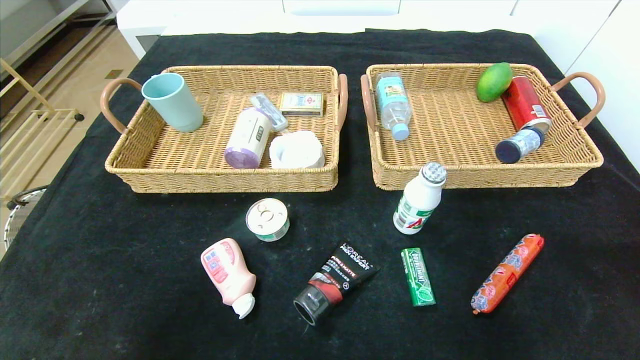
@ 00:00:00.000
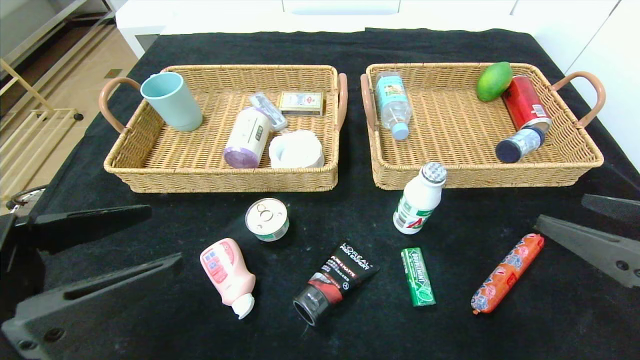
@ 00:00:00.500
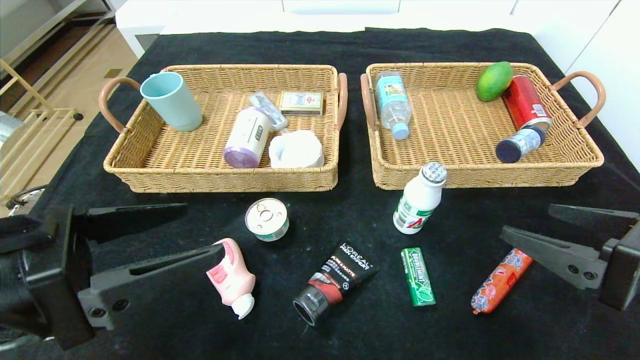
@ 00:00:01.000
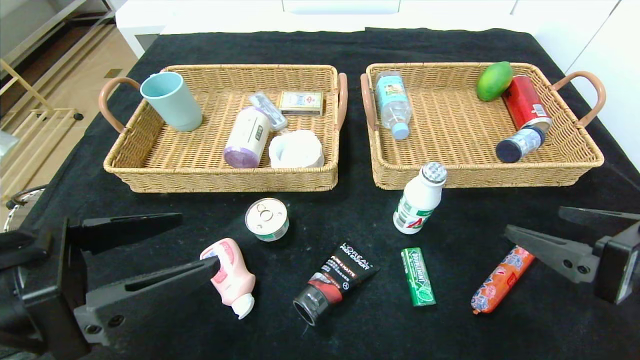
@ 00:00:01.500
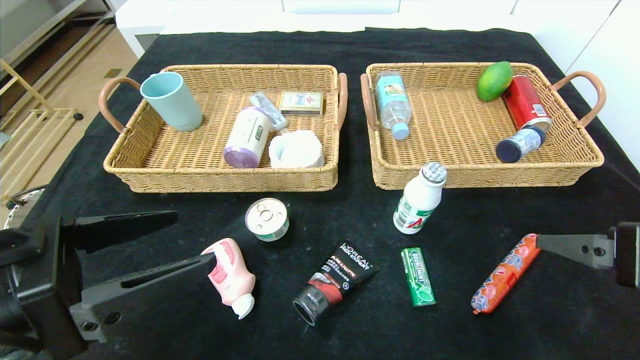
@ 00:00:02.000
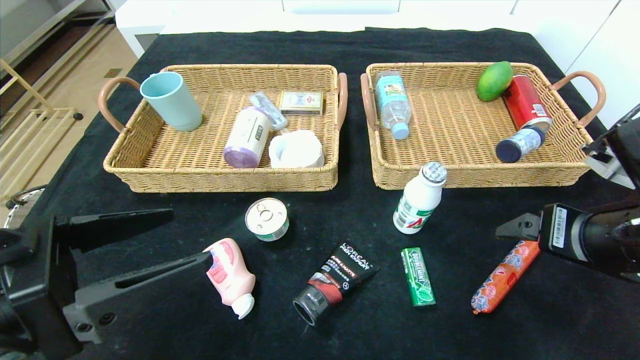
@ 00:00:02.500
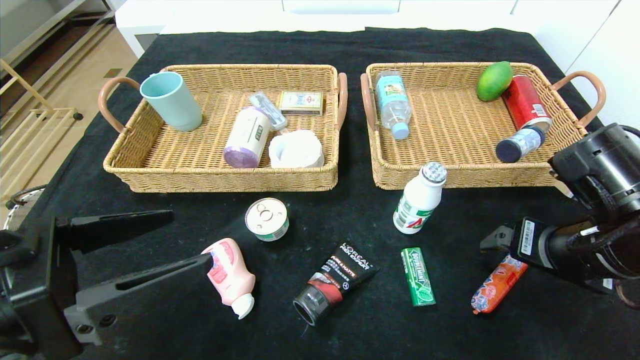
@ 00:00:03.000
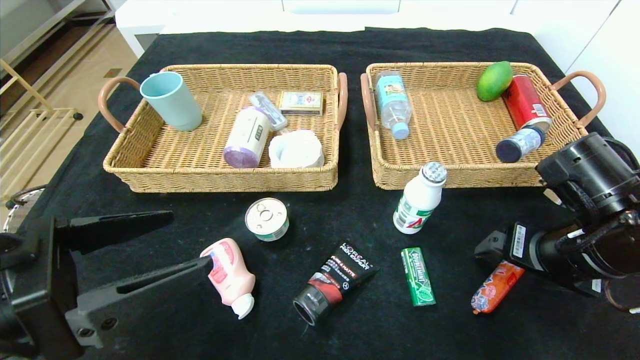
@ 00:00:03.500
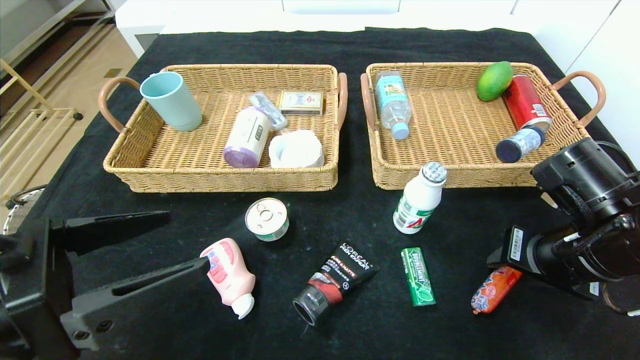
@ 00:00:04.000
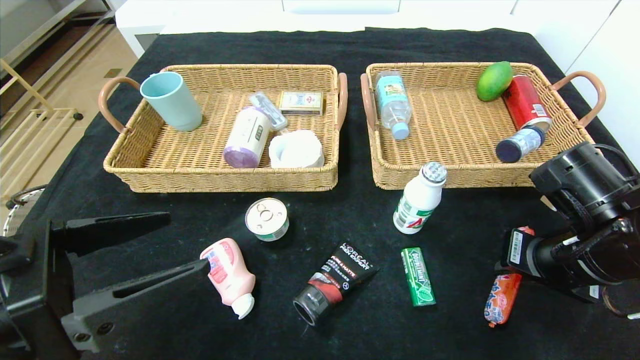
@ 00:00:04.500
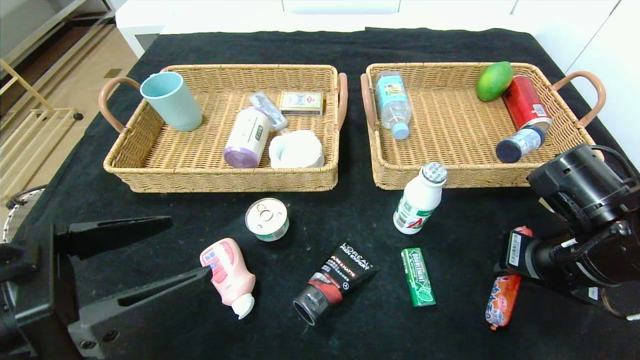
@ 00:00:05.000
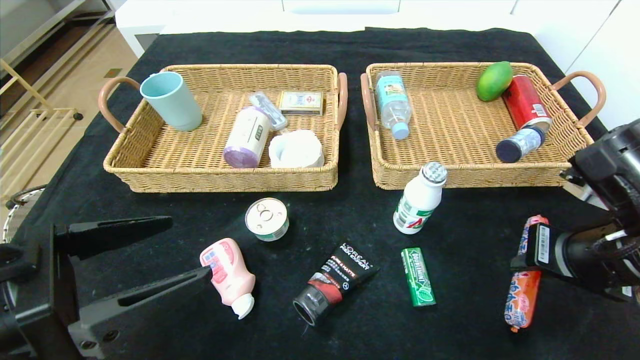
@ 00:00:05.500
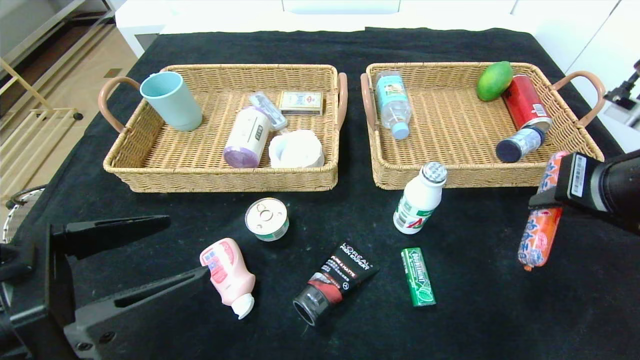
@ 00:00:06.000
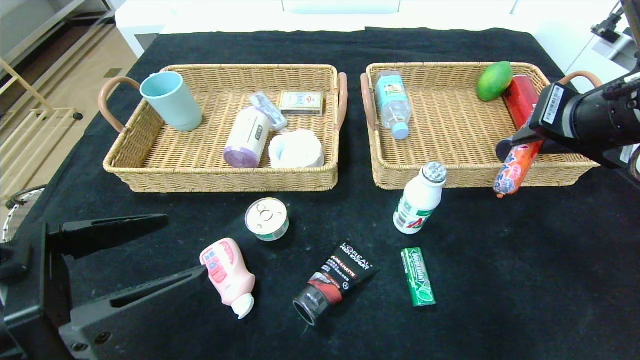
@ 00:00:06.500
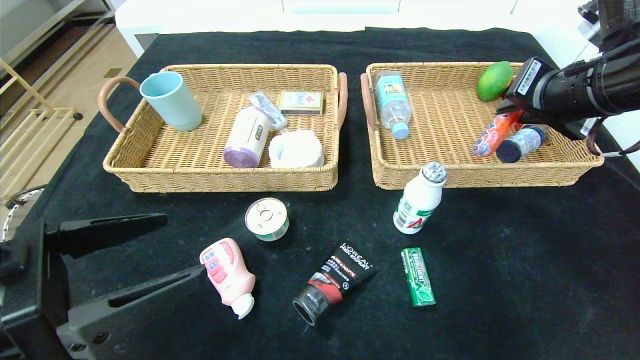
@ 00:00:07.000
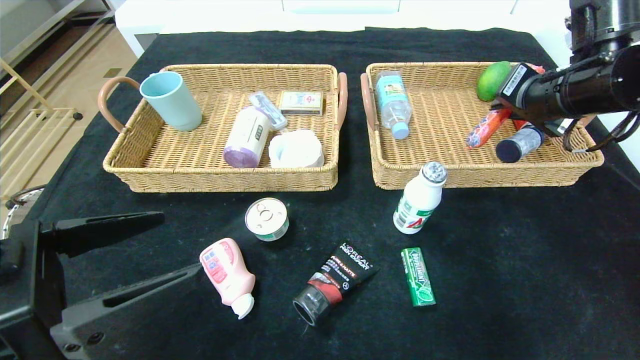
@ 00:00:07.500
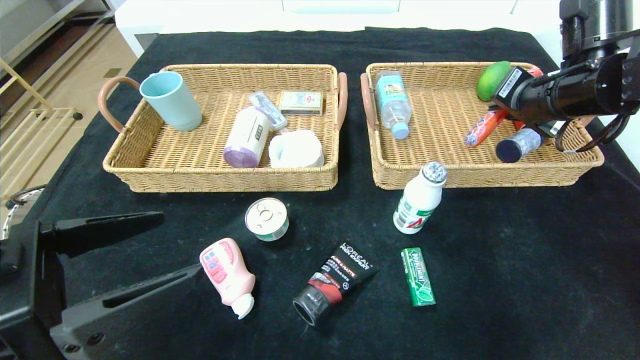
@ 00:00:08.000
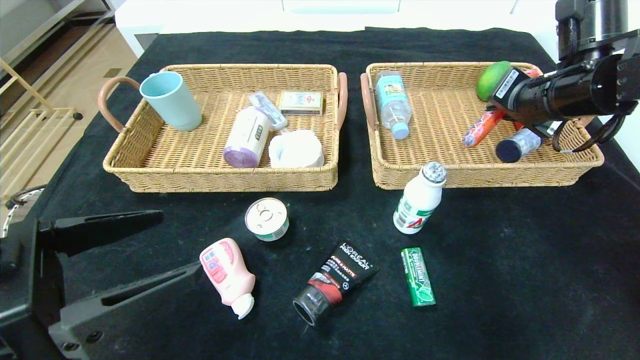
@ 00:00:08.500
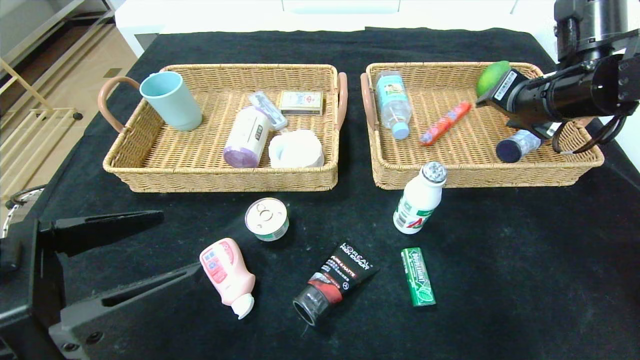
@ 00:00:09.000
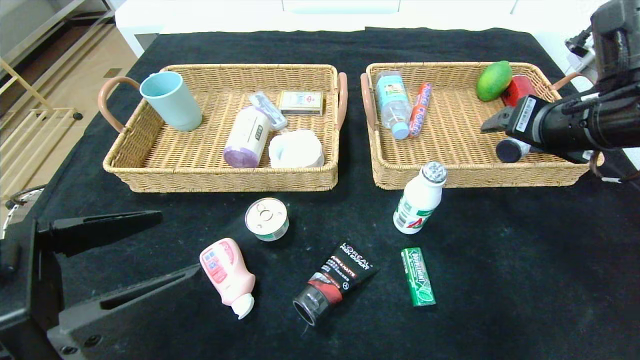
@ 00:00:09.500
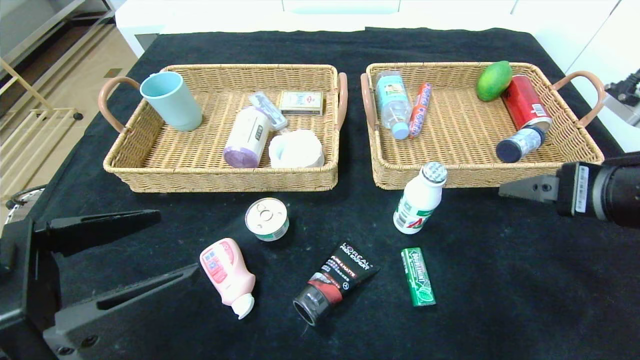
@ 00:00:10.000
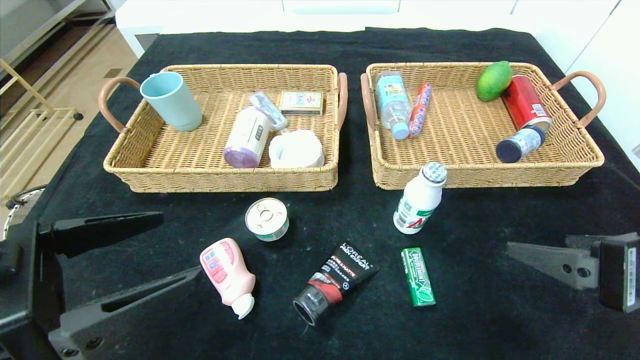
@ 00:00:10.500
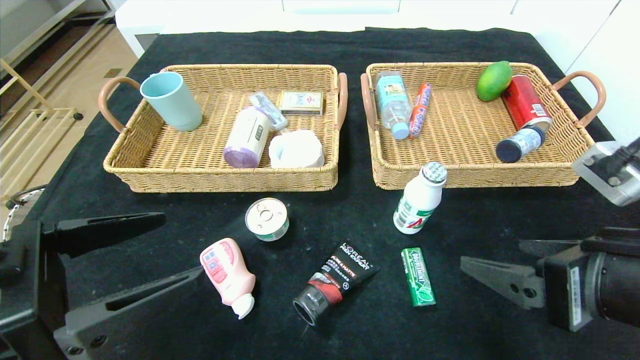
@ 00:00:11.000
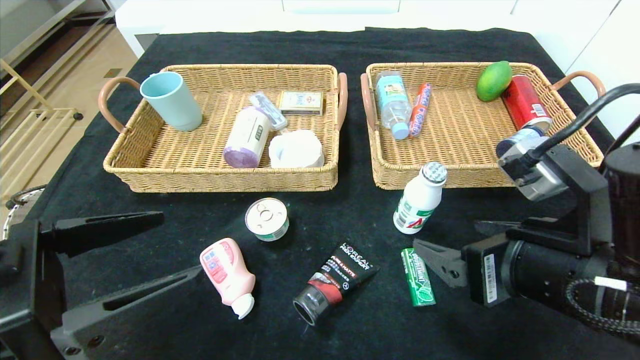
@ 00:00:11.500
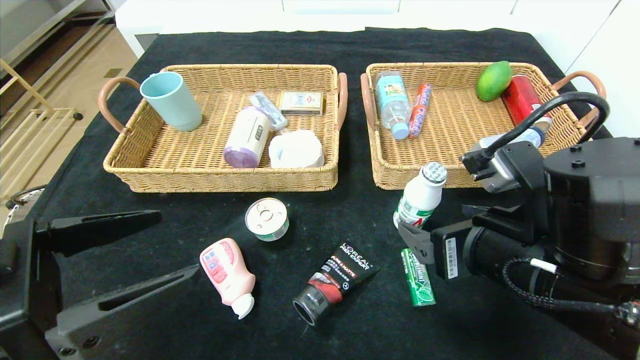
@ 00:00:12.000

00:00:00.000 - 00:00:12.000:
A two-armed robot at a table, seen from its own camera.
Step, 00:00:00.000 - 00:00:09.000: Grasp the sausage and put it in the right basket.
00:00:00.000 - 00:00:02.000: The right gripper travels forward and to the left by approximately 15 cm. The left gripper heads forward and to the right, covering about 10 cm.
00:00:02.000 - 00:00:04.000: The right gripper shifts some 10 cm forward and downward, and closes its fingers.
00:00:04.000 - 00:00:06.000: The right gripper heads upward, covering approximately 10 cm.
00:00:06.000 - 00:00:08.000: The right gripper travels forward by approximately 15 cm.
00:00:08.000 - 00:00:10.000: The right gripper shifts about 15 cm backward, and opens up.
00:00:10.000 - 00:00:12.000: The right gripper heads to the left and downward, covering some 10 cm.

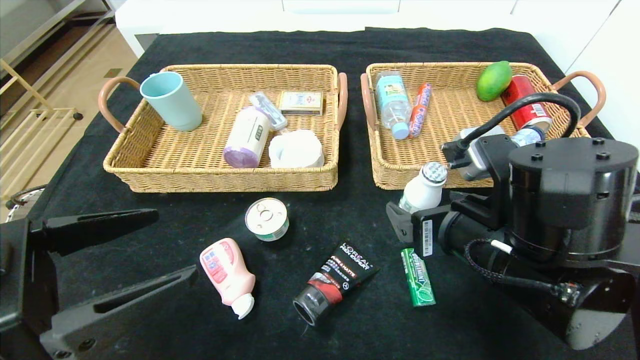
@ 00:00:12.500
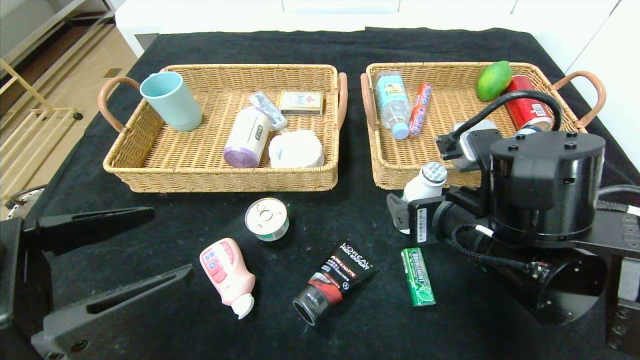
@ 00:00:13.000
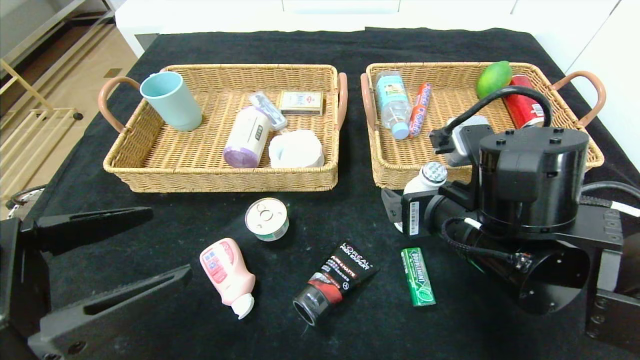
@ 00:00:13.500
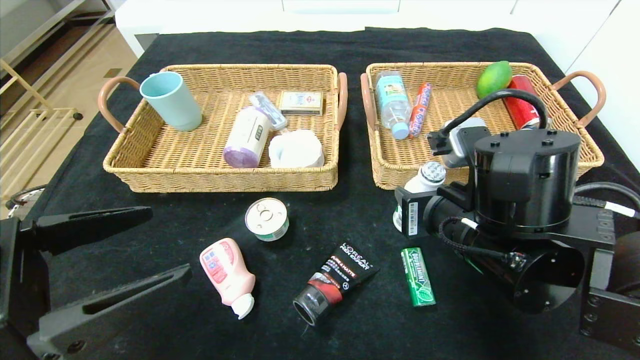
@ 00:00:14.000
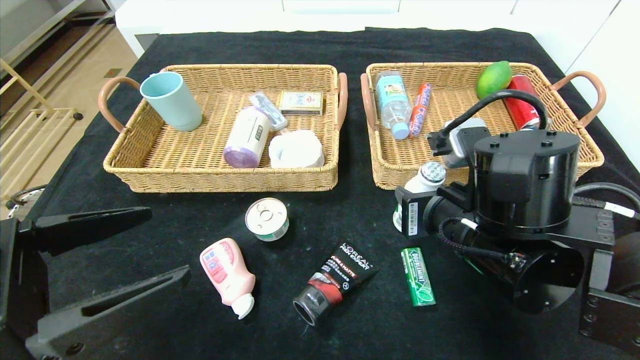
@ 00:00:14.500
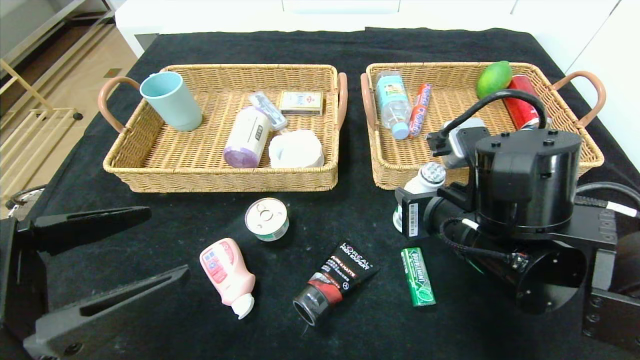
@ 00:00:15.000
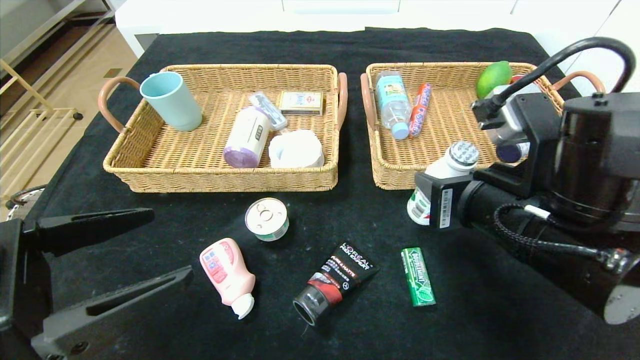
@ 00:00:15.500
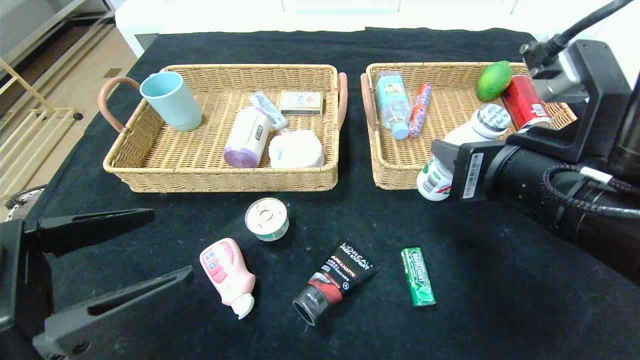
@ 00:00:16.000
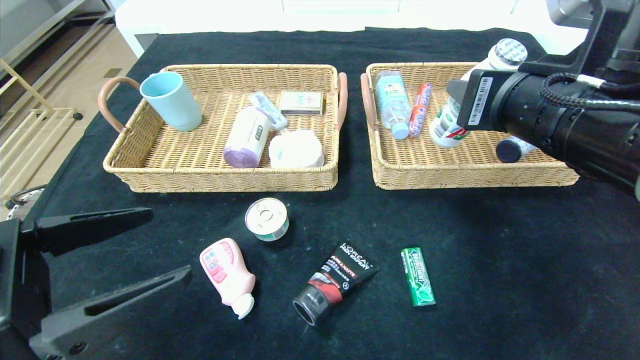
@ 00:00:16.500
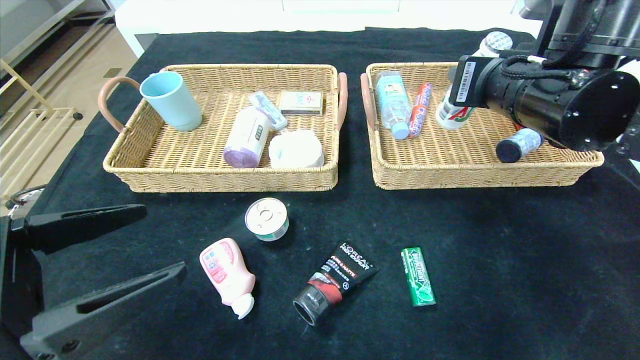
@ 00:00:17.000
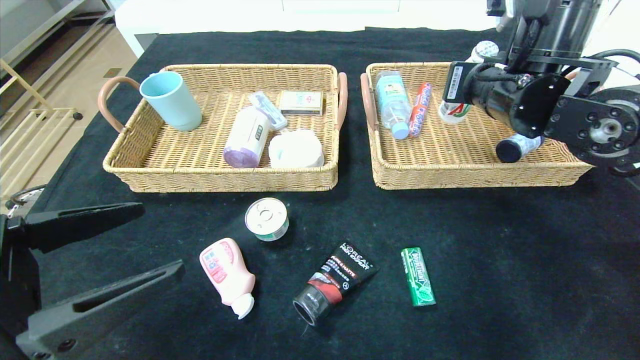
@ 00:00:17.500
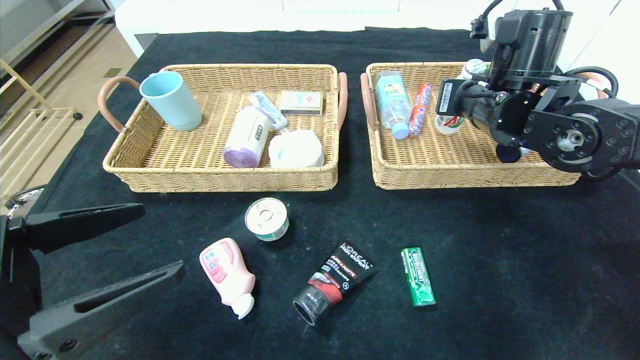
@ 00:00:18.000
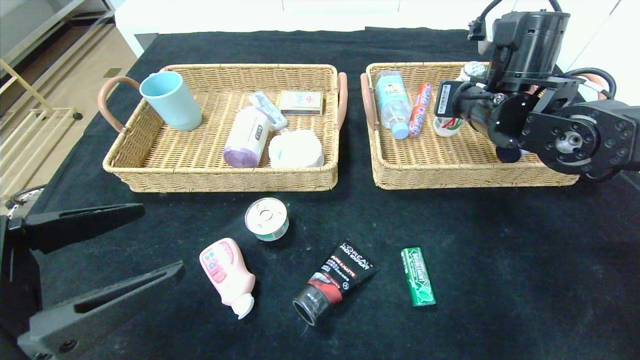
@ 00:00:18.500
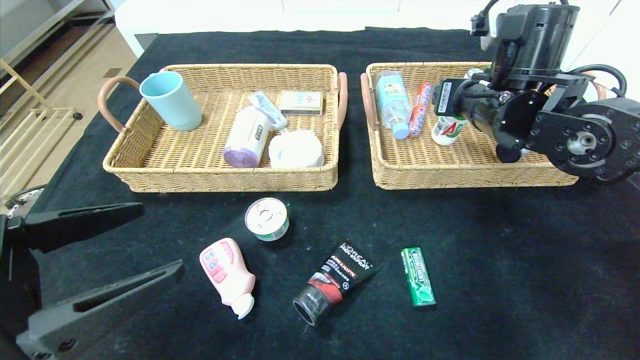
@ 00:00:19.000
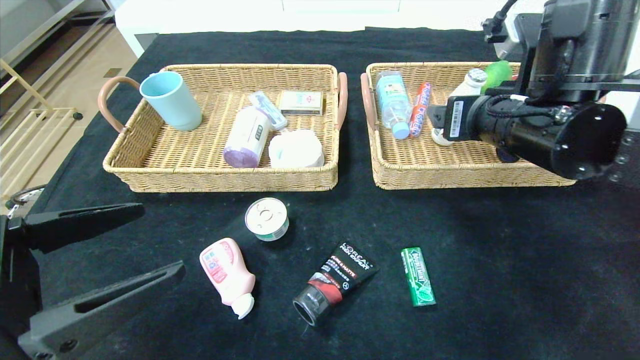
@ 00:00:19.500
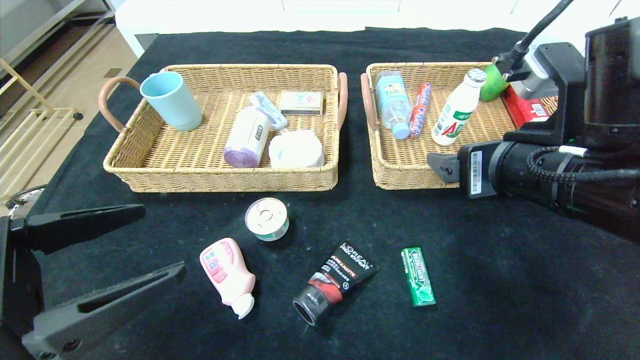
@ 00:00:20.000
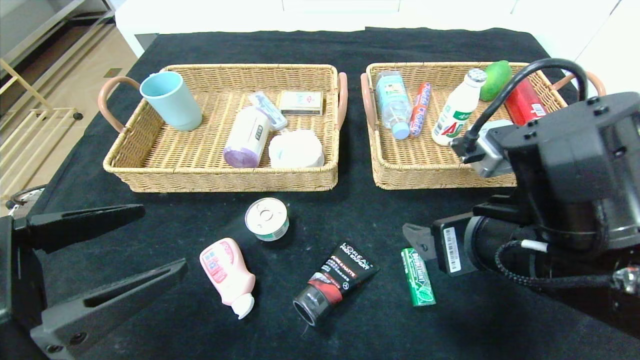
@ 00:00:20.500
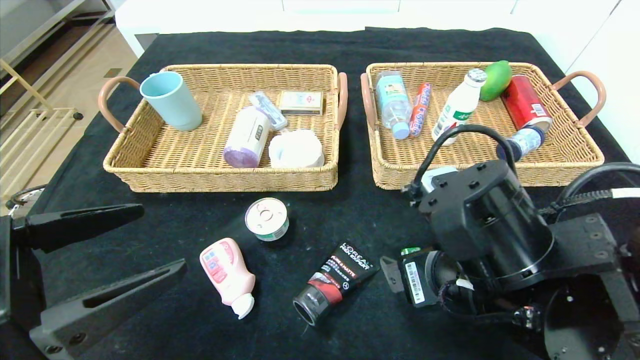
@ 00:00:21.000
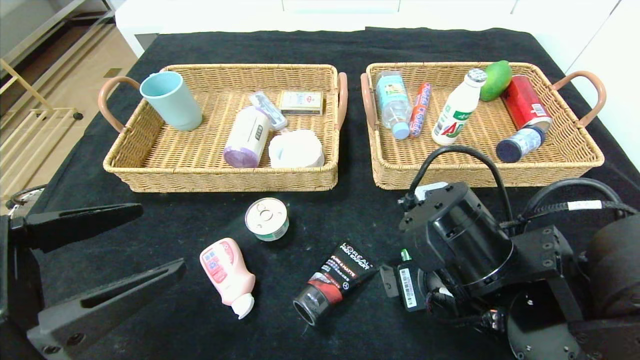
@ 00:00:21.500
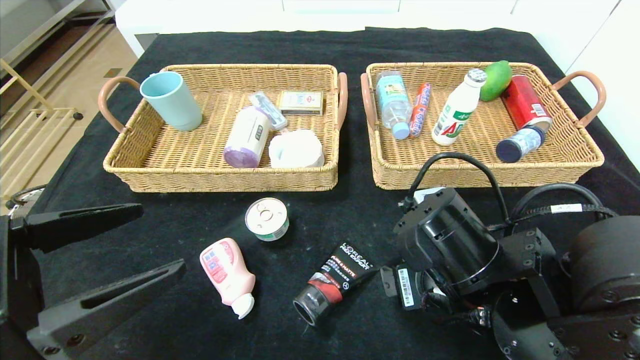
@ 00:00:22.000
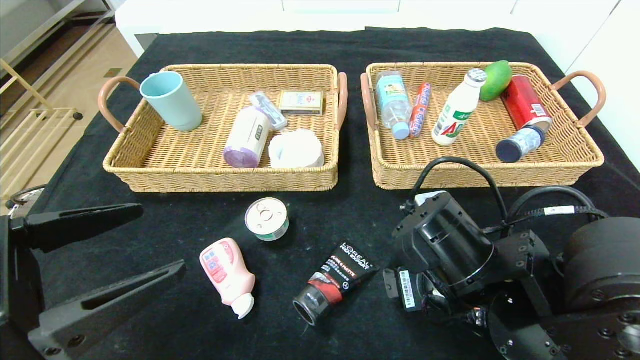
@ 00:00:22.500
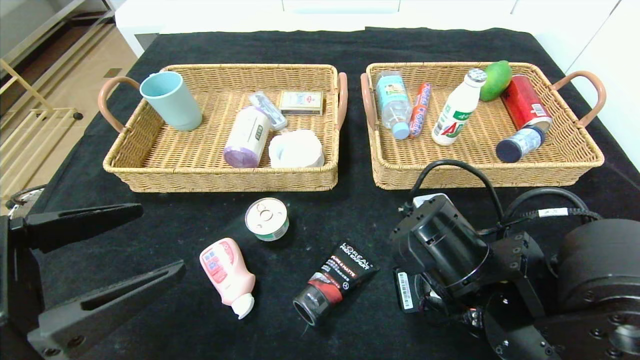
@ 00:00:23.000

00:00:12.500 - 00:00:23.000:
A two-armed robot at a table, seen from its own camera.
Step, 00:00:12.500 - 00:00:19.000: Grasp the ad milk and put it in the right basket.
00:00:12.500 - 00:00:14.500: The right gripper closes up.
00:00:14.500 - 00:00:16.500: The right gripper travels upward by about 10 cm.
00:00:16.500 - 00:00:19.000: The right gripper moves forward, some 10 cm, and opens up.
00:00:19.000 - 00:00:21.000: The right gripper moves backward and downward, roughly 20 cm.
00:00:21.000 - 00:00:23.000: The right gripper closes.
